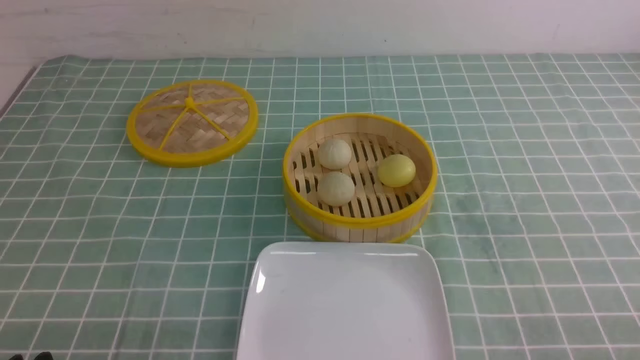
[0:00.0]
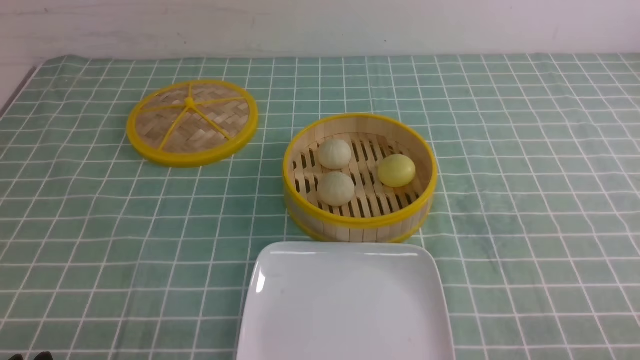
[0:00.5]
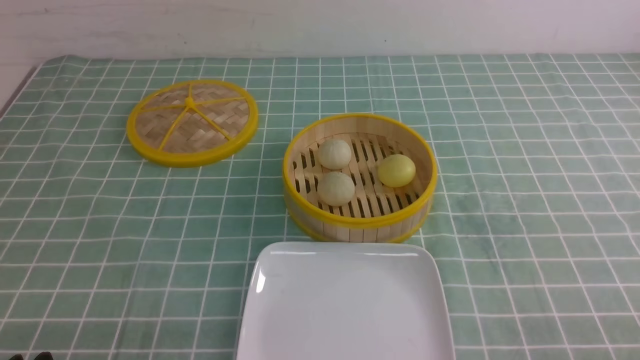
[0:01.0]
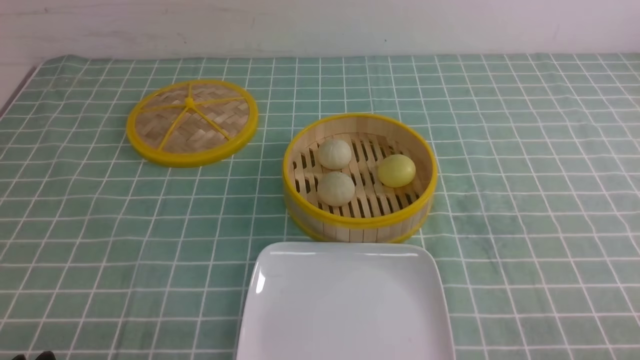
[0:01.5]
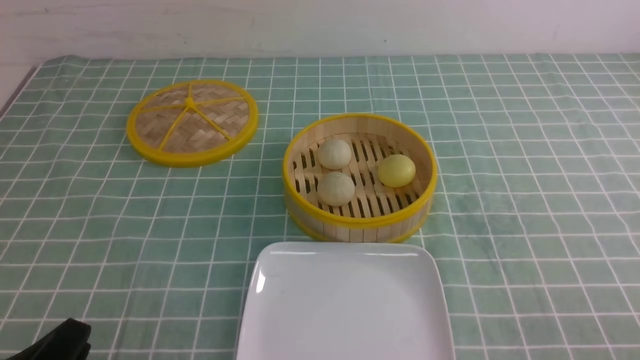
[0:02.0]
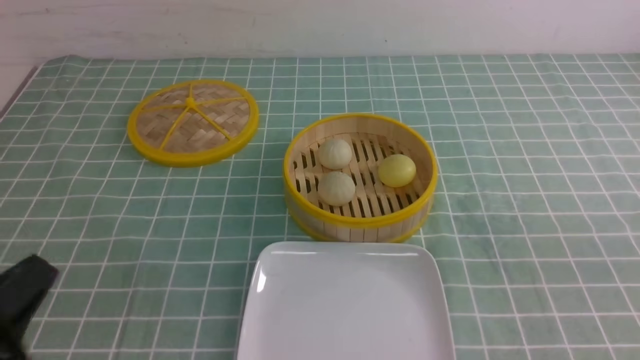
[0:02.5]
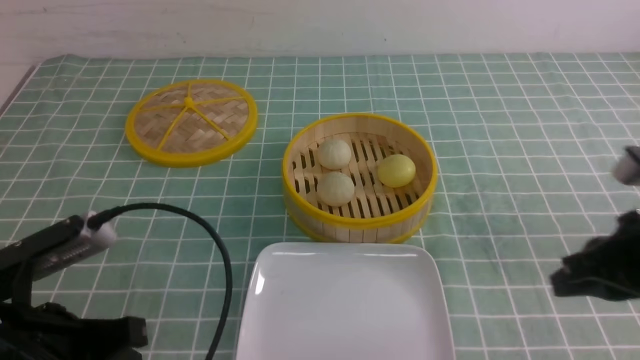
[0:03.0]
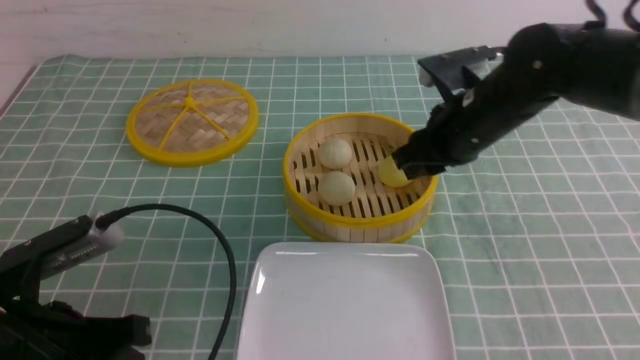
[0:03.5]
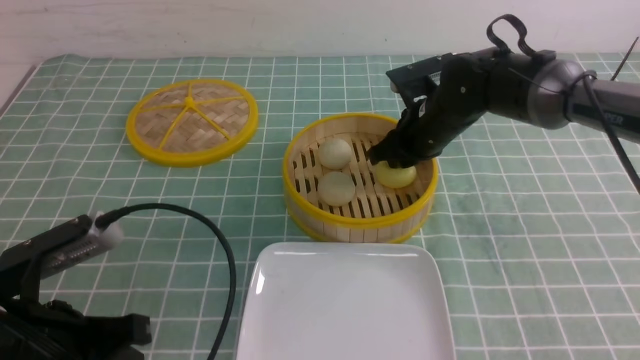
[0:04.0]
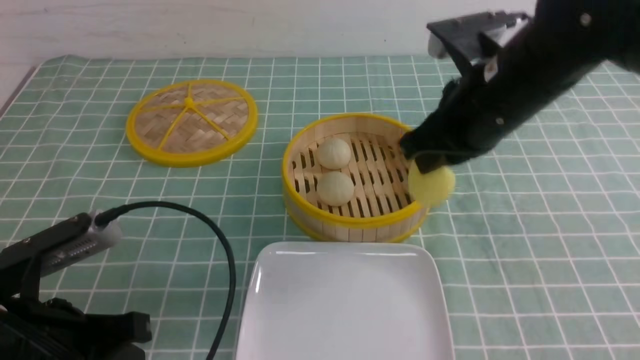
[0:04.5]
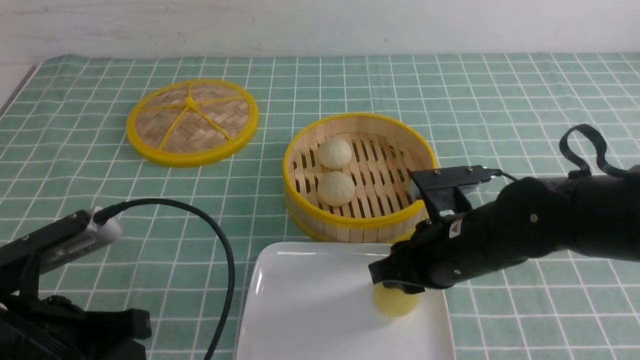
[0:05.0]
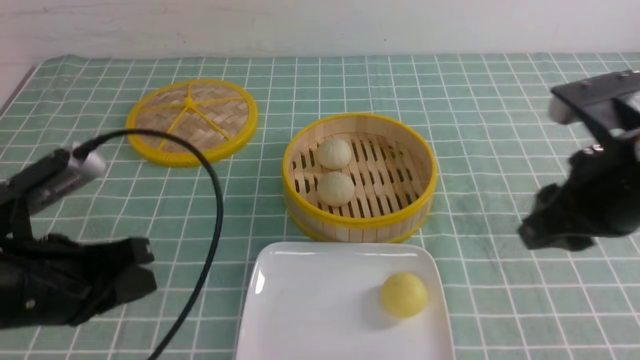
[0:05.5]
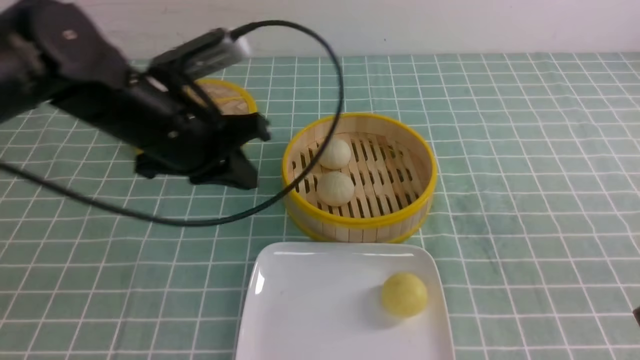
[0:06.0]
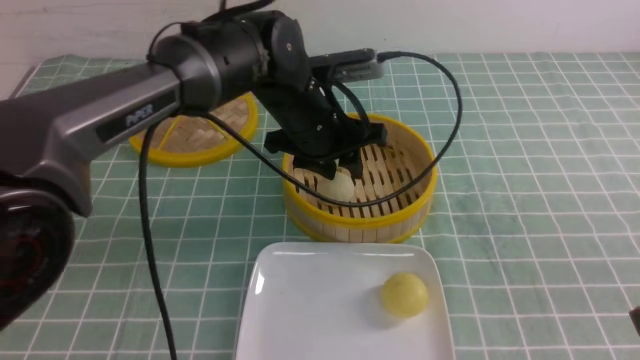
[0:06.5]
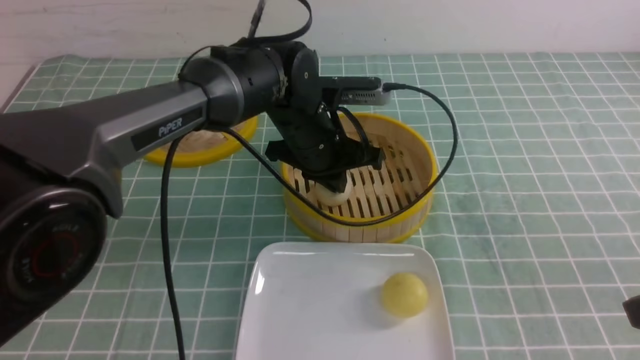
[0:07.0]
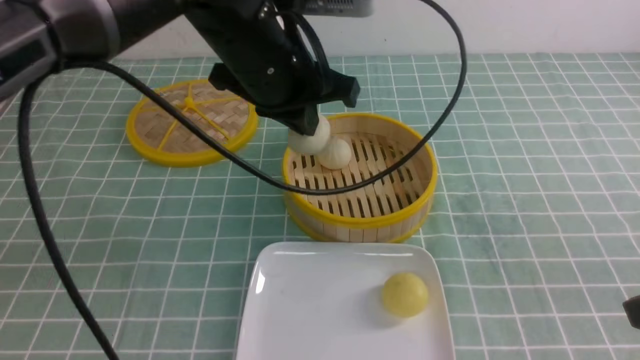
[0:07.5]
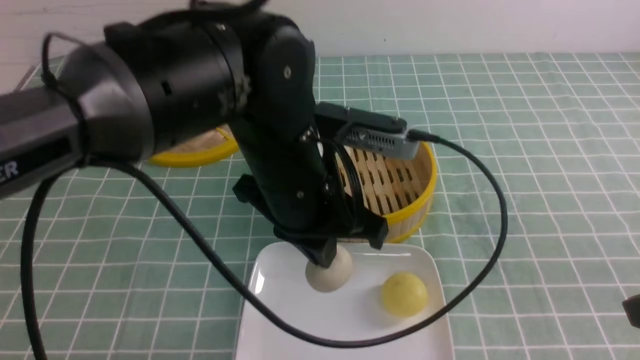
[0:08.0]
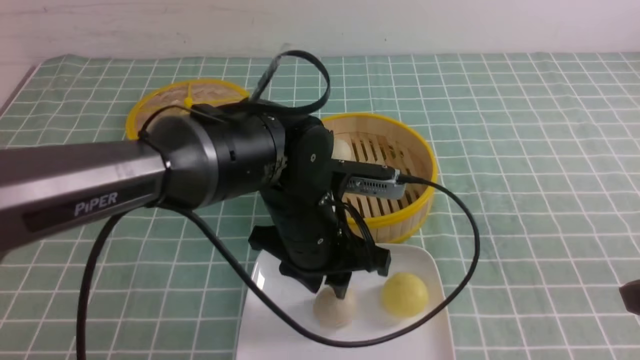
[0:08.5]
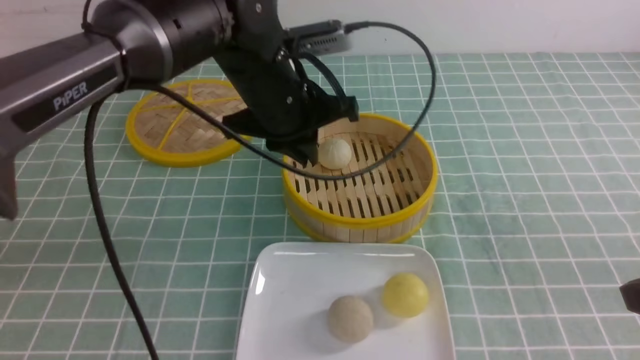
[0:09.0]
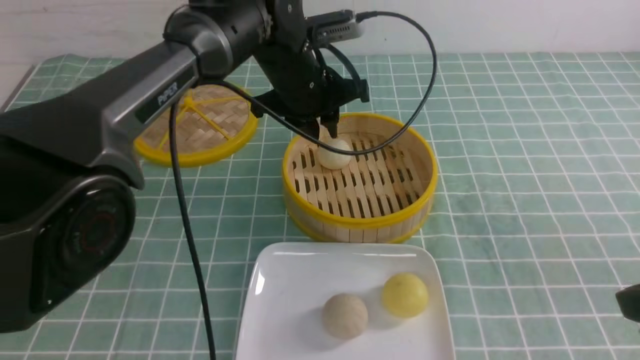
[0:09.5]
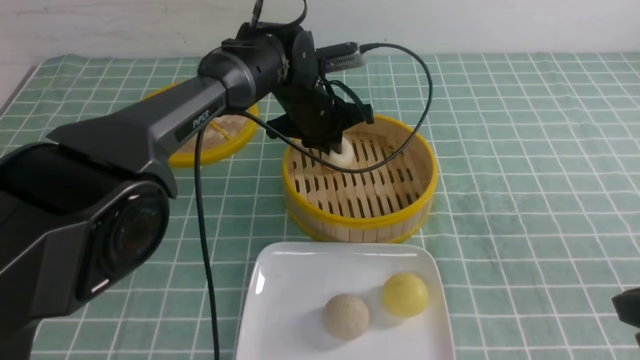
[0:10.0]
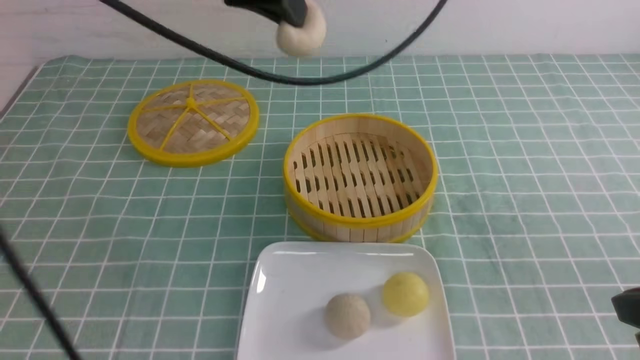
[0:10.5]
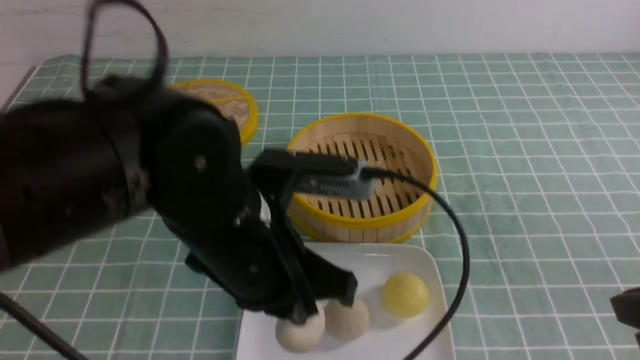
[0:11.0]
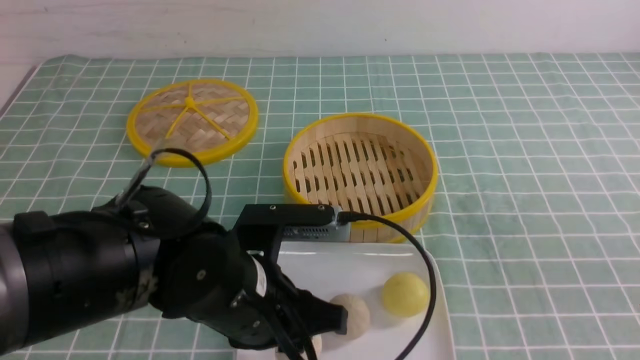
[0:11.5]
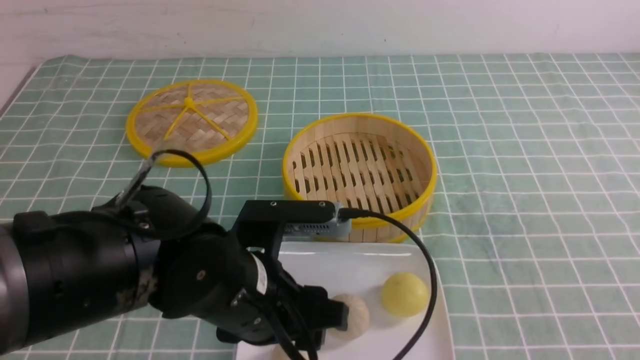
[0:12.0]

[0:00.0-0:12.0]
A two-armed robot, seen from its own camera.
Step, 0:00.0 to 0:04.0: use the right arm to grab the steamed stuffed bun that is closest to it.
Step, 0:04.5 to 0:05.0: use the right arm to put the steamed stuffed bun into the plate.
Step, 0:05.5 to 0:07.0: use the left arm to grab the steamed stuffed bun that is closest to it.
Step, 0:07.5 to 0:08.0: use the left arm to put the steamed stuffed bun into the plate.
Step, 0:09.0 to 0:10.0: use the left arm to grab the steamed stuffed bun that is closest to it.
Step, 0:10.5 to 0:11.5: use the left arm to put the steamed stuffed bun into the plate.
0:02.0 to 0:04.0: The right gripper moves forward and to the left, approximately 40 cm, and closes, then opens again; the left gripper heads forward, covering about 10 cm, and closes.
0:04.0 to 0:06.0: The right gripper moves backward and to the right, some 35 cm, and closes its fingers. Meanwhile the left gripper is displaced forward and to the right by some 20 cm.
0:06.0 to 0:08.0: The left gripper heads to the right, covering about 10 cm, and opens and closes again.
0:08.0 to 0:10.0: The left gripper goes some 20 cm forward.
0:10.0 to 0:12.0: The left gripper heads backward, covering roughly 25 cm, and opens up. Meanwhile the right gripper shifts some 10 cm backward and upward.

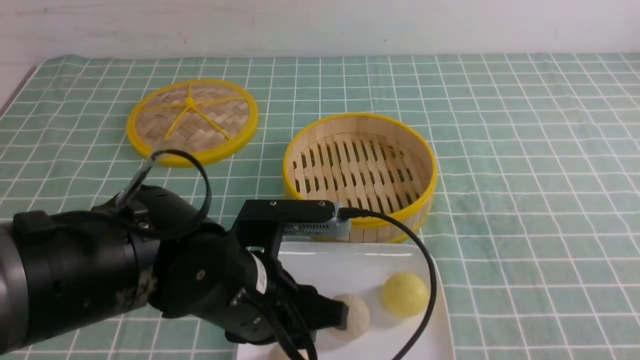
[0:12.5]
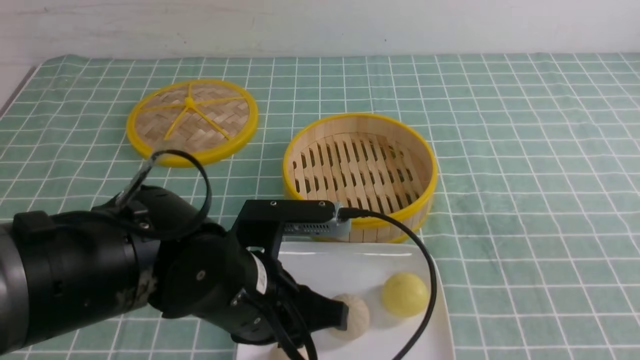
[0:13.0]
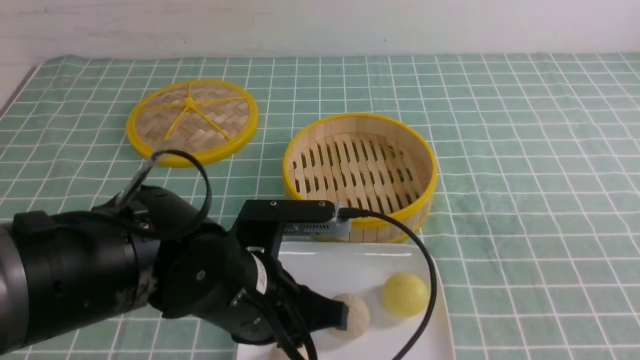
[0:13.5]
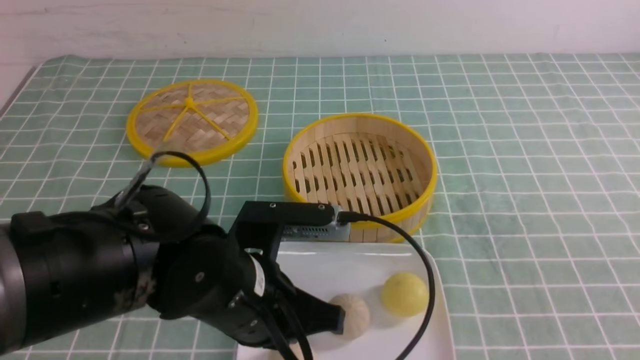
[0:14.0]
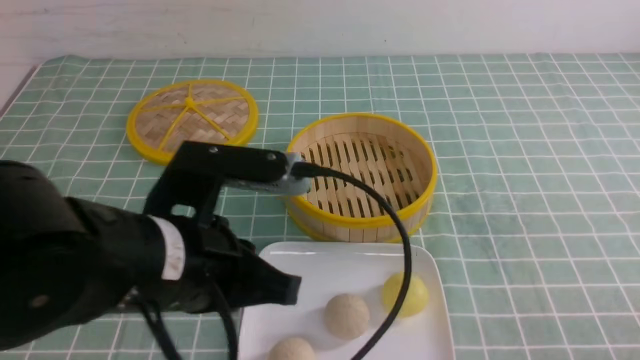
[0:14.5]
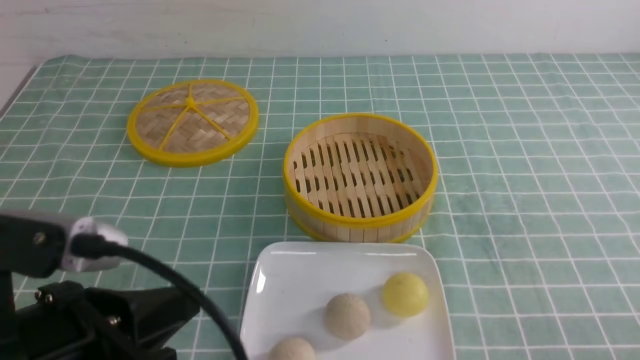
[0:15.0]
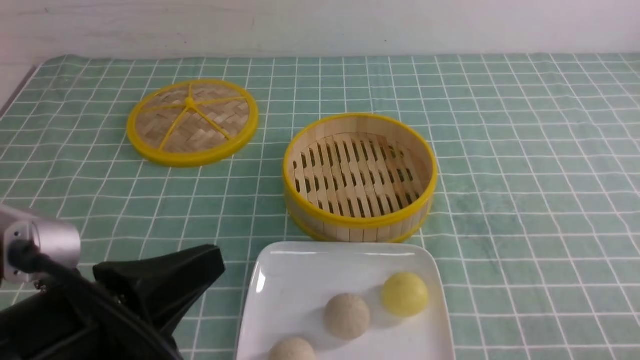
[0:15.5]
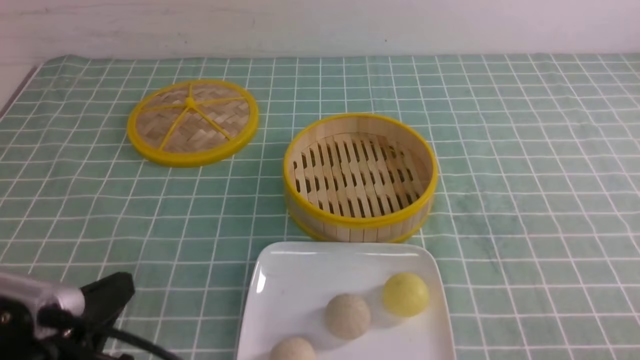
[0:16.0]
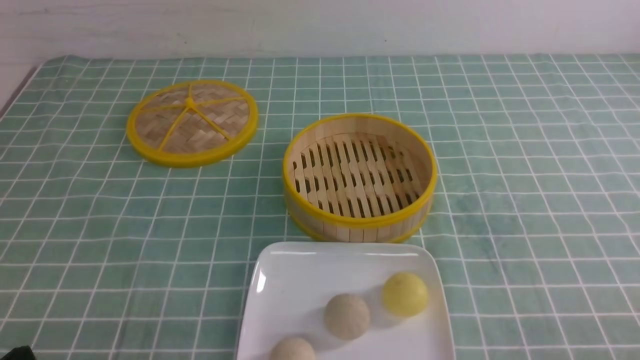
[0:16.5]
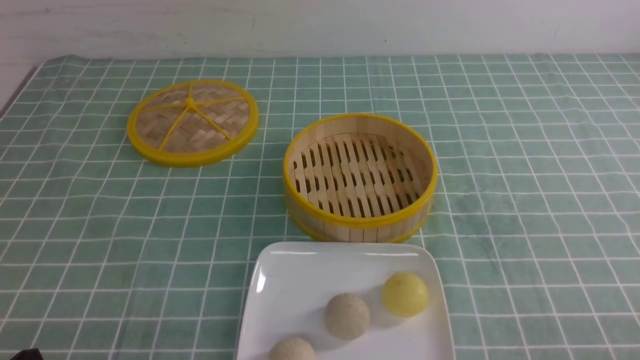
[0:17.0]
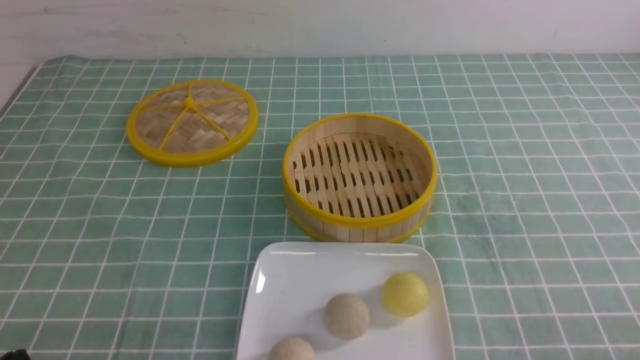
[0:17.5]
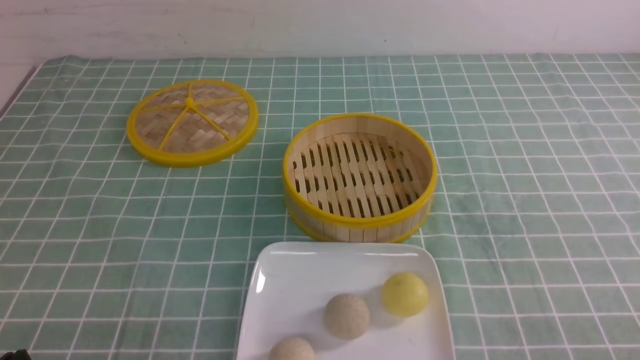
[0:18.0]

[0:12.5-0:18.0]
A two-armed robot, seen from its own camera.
0:12.5 to 0:14.5: The right gripper travels downward by approximately 15 cm. The left gripper heads upward, covering roughly 5 cm, and closes up.
0:14.5 to 0:16.0: The left gripper travels to the left, backward and downward by some 15 cm.
0:16.0 to 0:18.0: The left gripper shifts some 5 cm downward.
